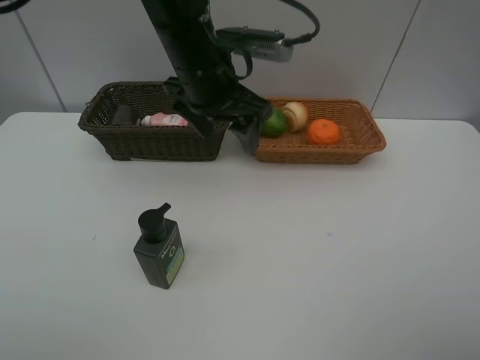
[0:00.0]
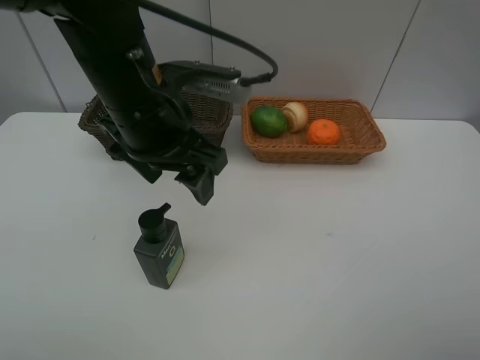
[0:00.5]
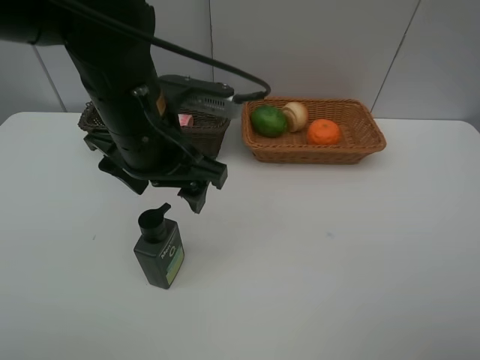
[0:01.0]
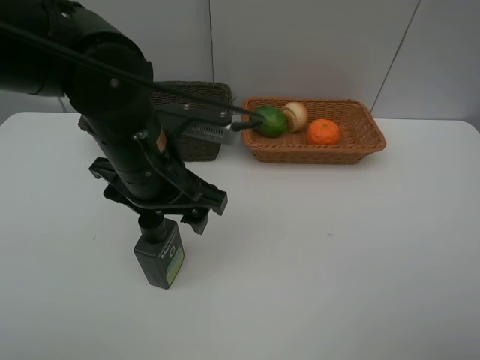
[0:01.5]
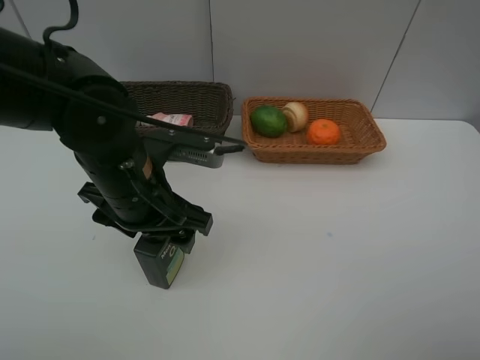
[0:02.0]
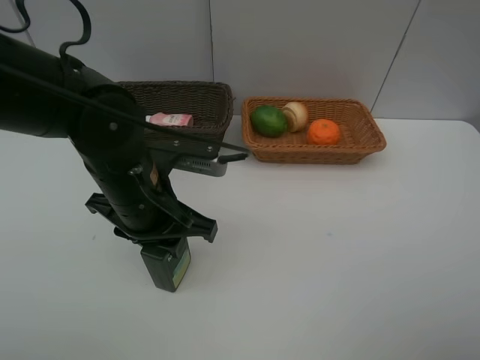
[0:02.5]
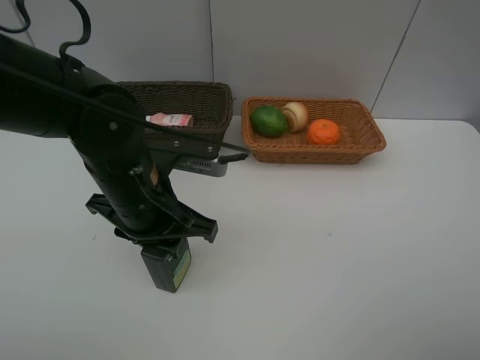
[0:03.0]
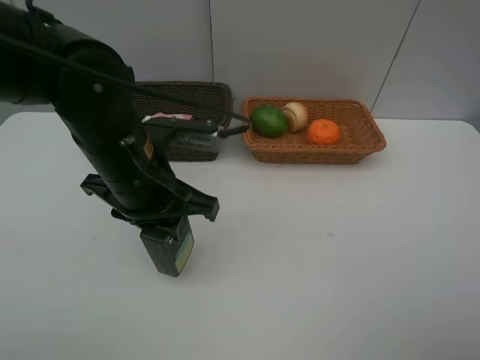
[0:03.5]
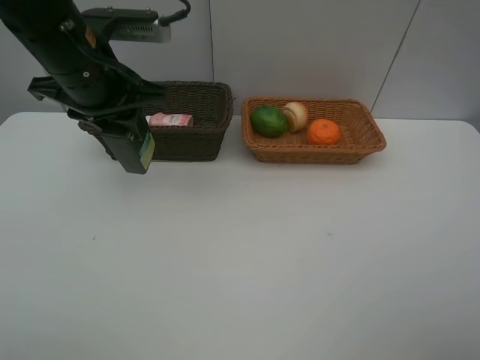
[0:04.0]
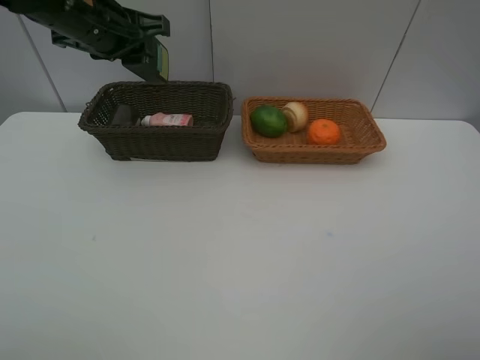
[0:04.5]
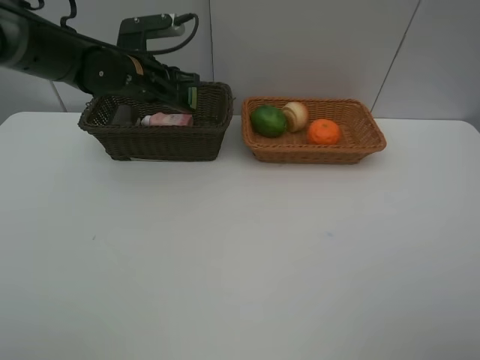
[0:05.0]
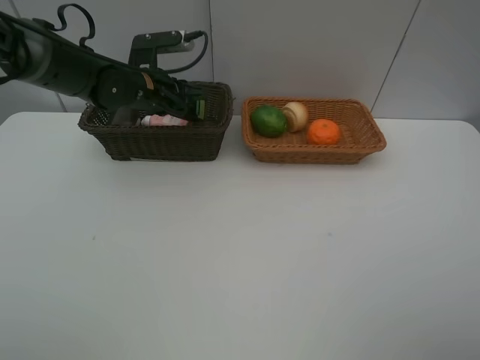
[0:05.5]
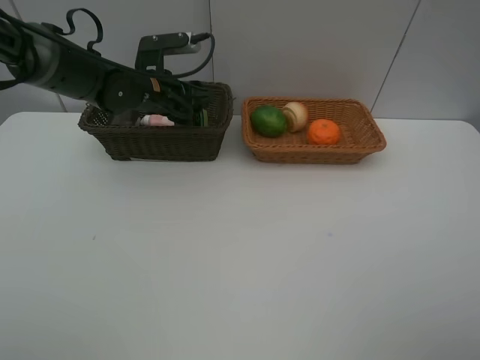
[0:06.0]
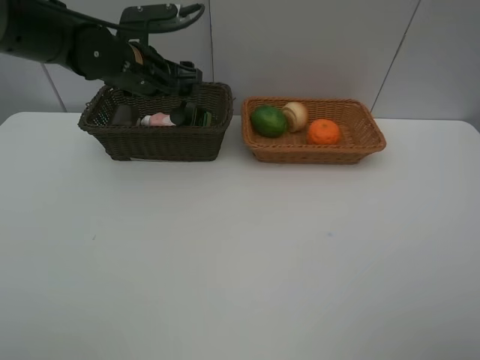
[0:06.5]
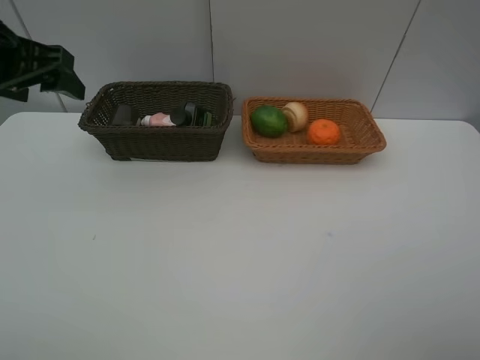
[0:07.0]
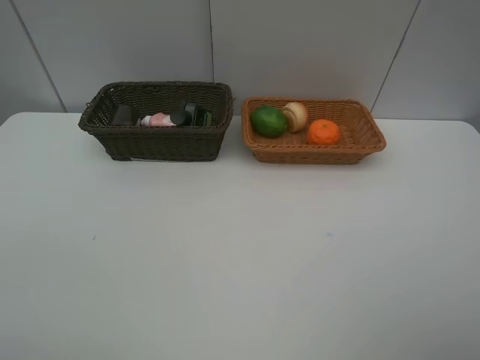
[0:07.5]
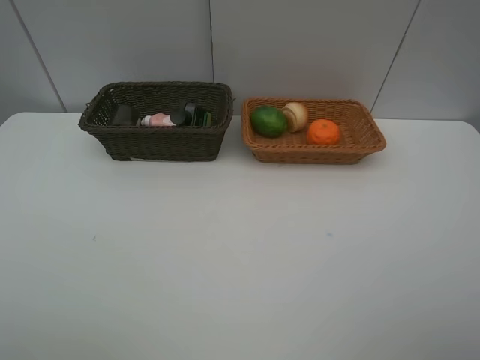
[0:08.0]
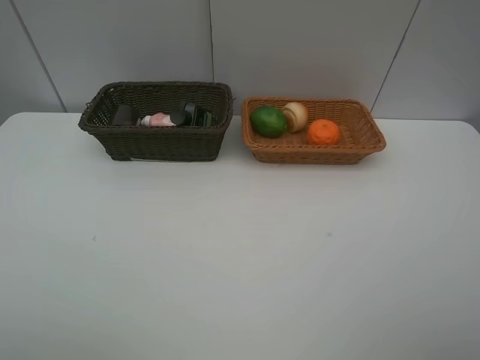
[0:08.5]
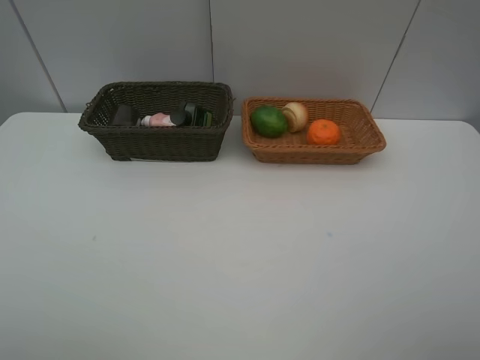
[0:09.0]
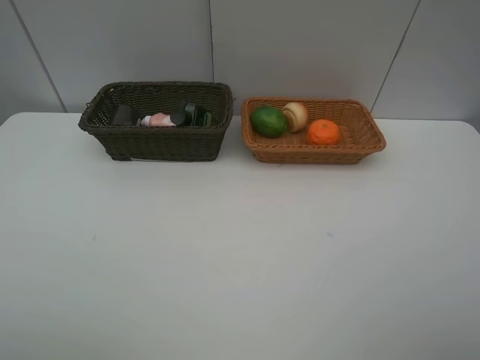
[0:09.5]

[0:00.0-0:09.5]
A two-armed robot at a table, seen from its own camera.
Task of the whole recording: place multiple objects separately in different baskets.
0.0 to 2.0 s: The left gripper is displaced backward, downward and to the left by approximately 15 cm.
2.0 to 4.0 s: The left gripper goes some 15 cm upward, forward and to the left, and closes its fingers.
4.0 to 5.5 s: The left gripper is displaced forward and downward by approximately 15 cm.
5.5 to 7.5 s: The left gripper shifts approximately 35 cm backward, upward and to the left, and opens.

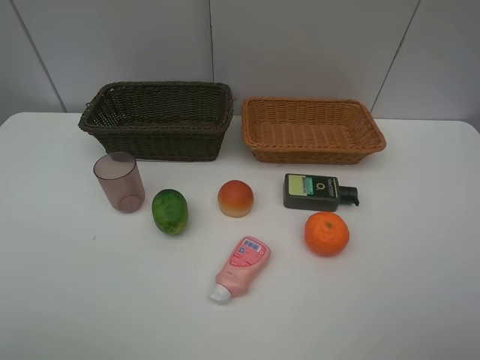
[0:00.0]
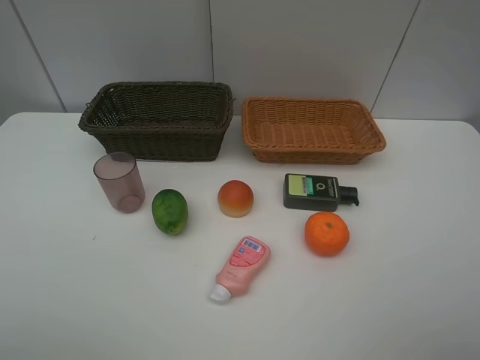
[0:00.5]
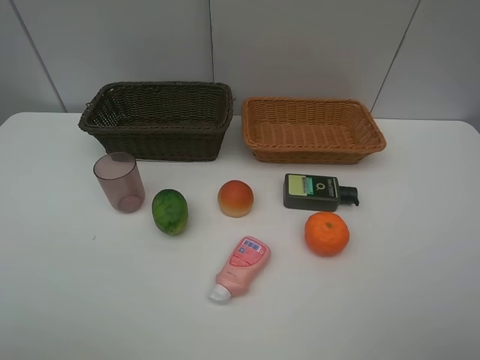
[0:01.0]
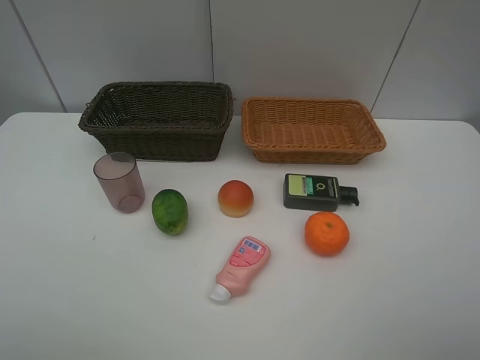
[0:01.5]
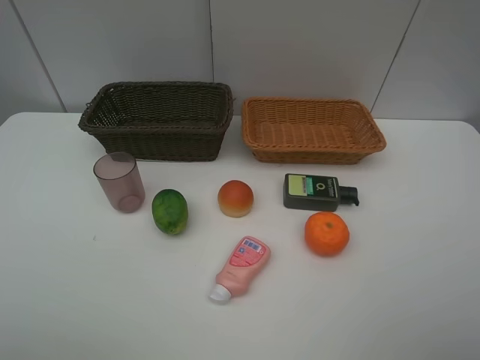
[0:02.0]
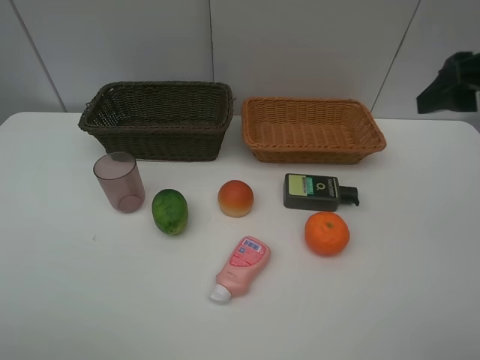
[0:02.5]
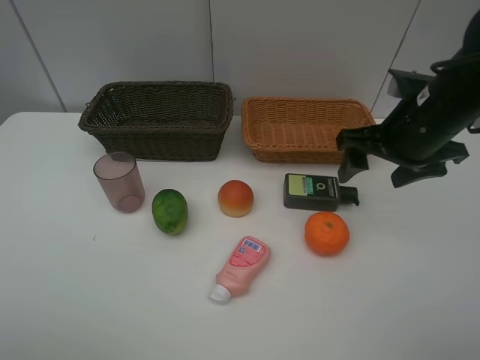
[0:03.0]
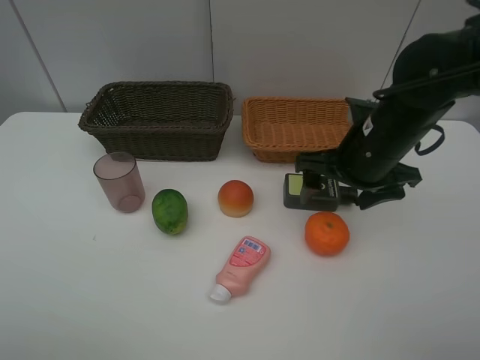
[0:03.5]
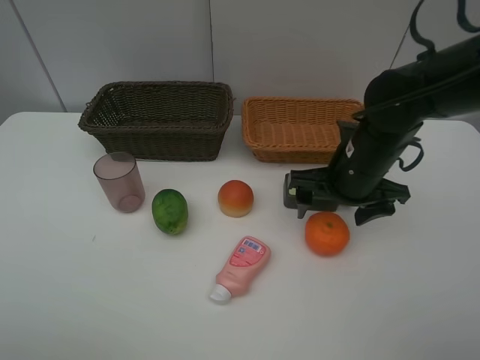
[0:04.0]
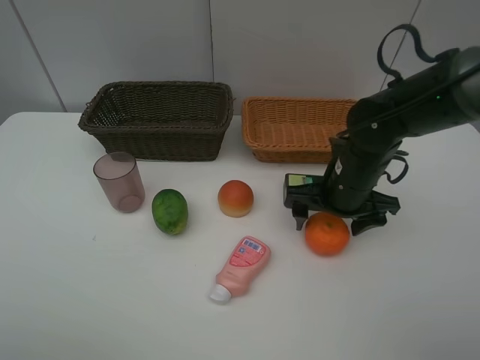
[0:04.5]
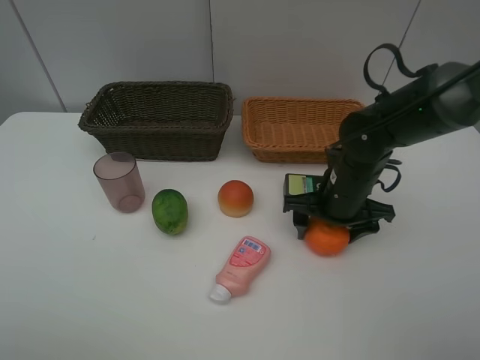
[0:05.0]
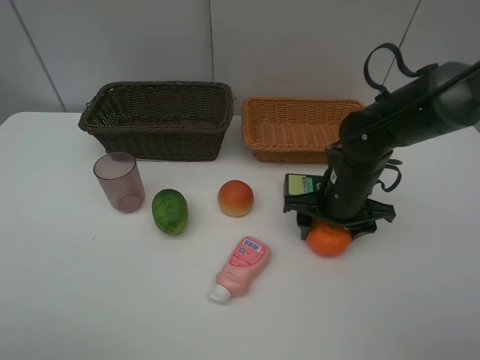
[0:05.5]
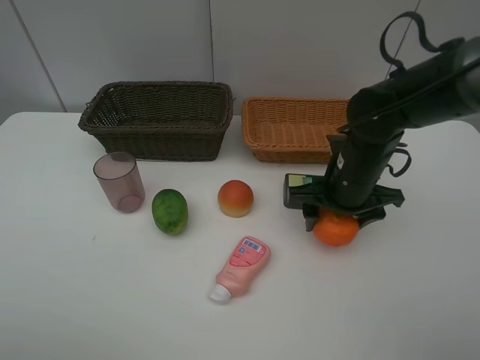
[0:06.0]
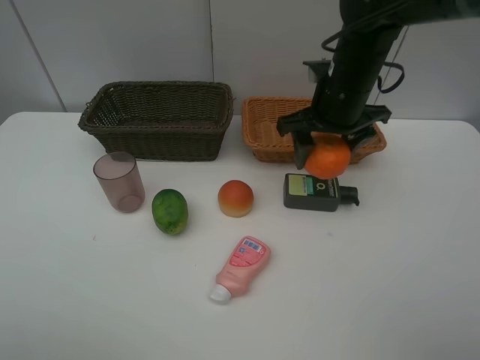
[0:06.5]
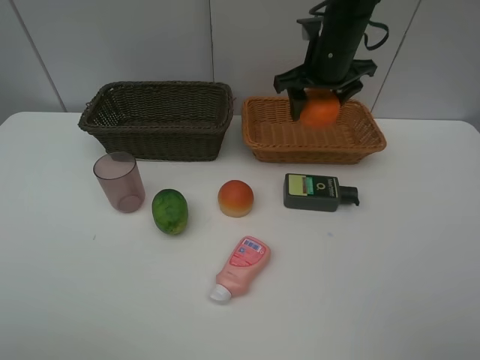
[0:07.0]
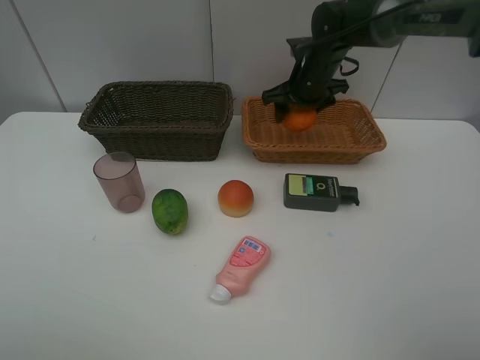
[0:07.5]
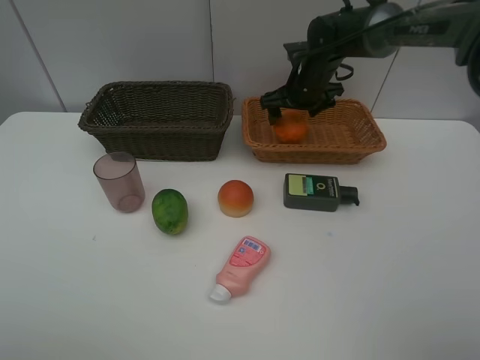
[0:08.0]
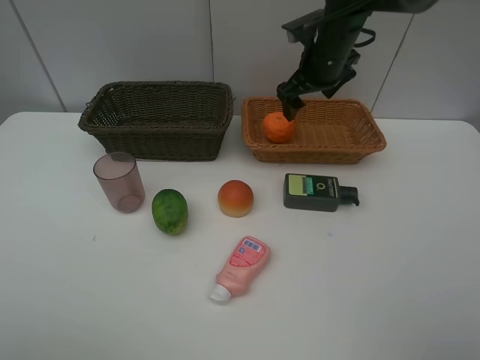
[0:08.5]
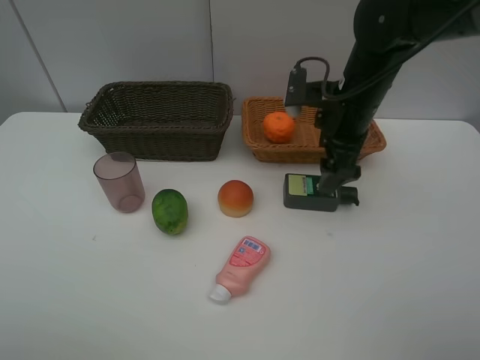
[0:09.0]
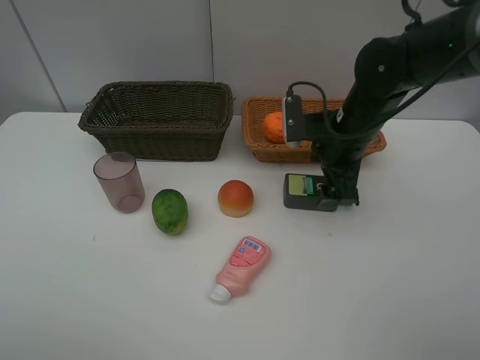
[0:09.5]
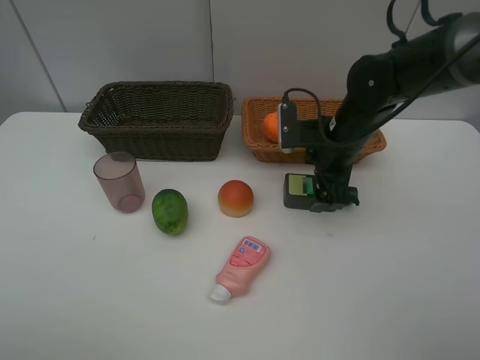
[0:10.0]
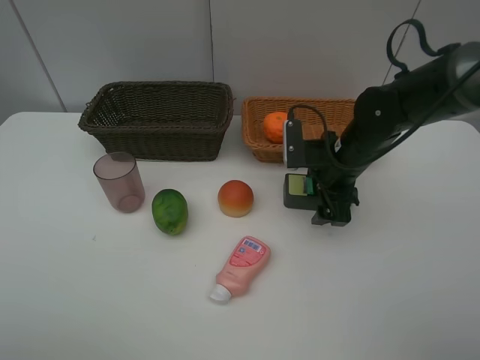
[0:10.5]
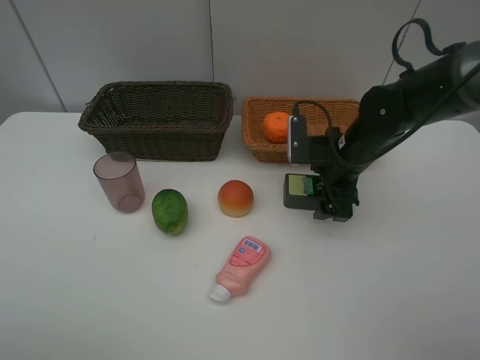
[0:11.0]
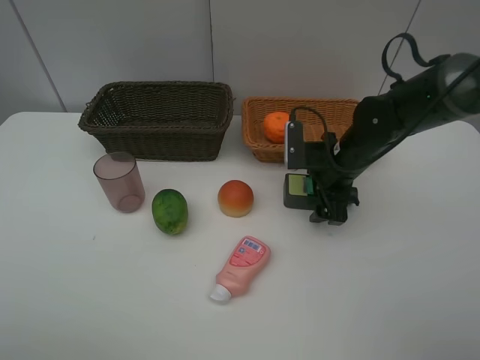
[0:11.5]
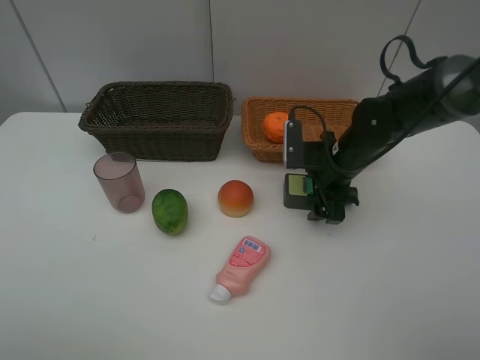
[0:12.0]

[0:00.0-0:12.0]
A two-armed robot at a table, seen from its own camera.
Task of the whole recording: place multiple objects separately in different baskets.
2.0 to 4.0 s: The right gripper shifts about 30 cm forward, to the left and downward.
4.0 to 6.0 s: The right gripper closes up.
6.0 to 8.0 s: The right gripper shifts about 20 cm forward, and opens.
8.0 to 10.0 s: The right gripper is displaced backward by roughly 15 cm.
10.0 to 12.0 s: There are only small adjustments of the grippers.

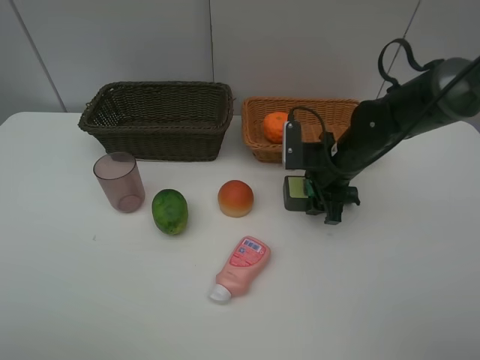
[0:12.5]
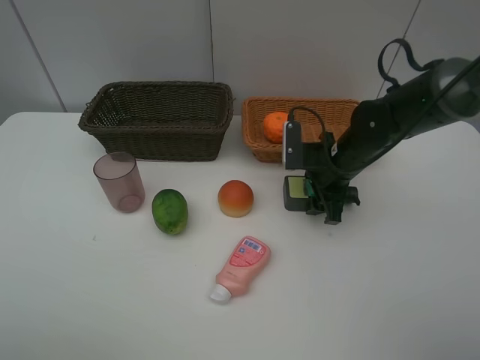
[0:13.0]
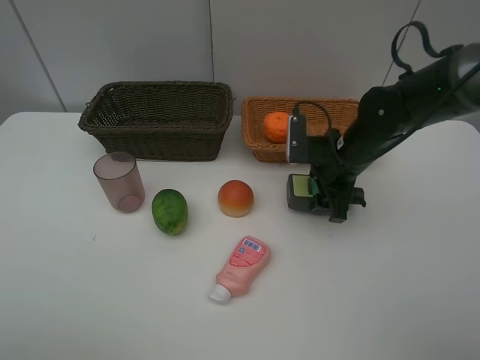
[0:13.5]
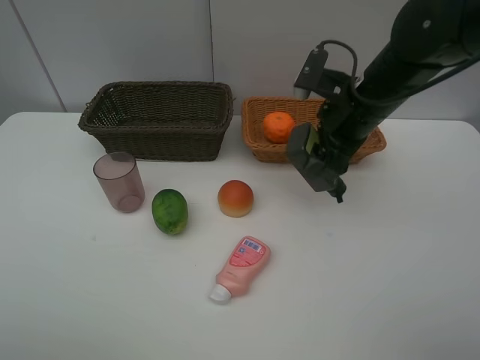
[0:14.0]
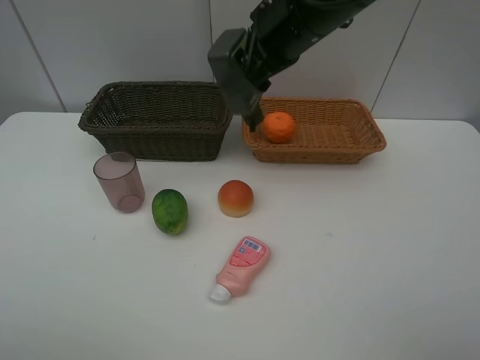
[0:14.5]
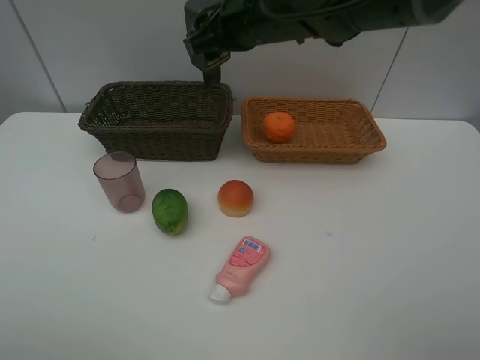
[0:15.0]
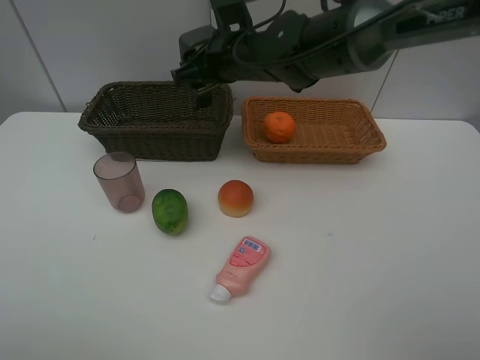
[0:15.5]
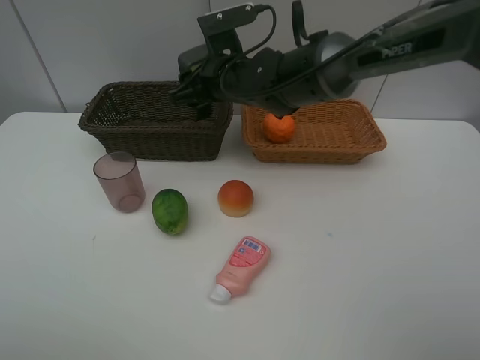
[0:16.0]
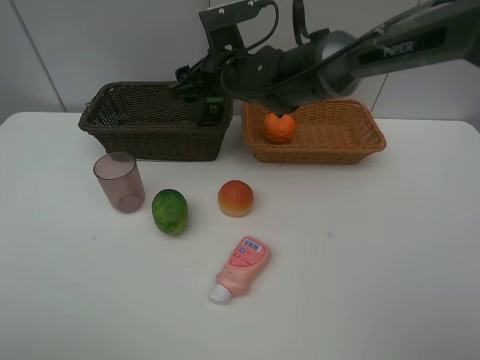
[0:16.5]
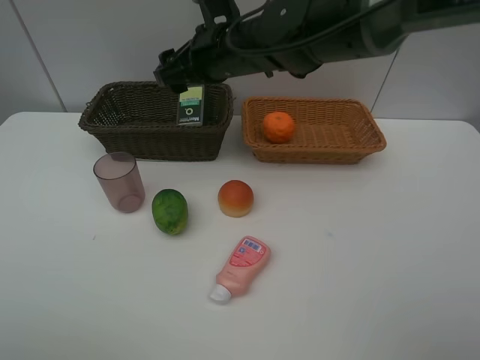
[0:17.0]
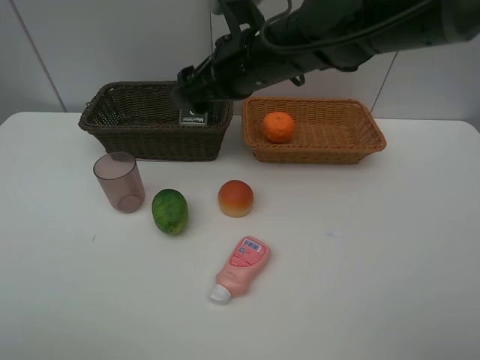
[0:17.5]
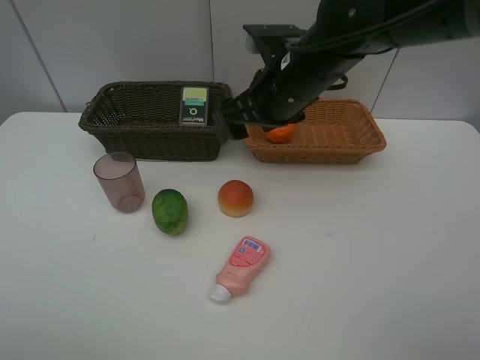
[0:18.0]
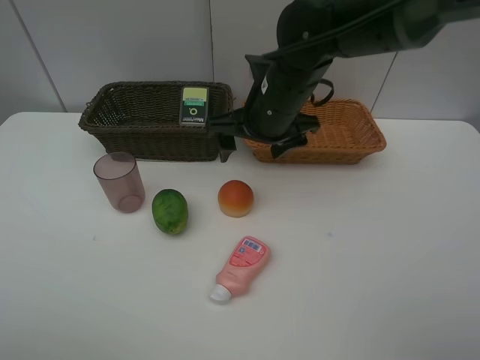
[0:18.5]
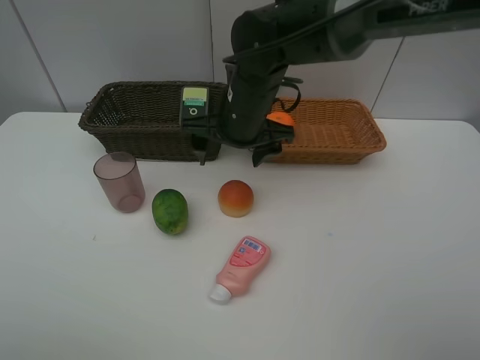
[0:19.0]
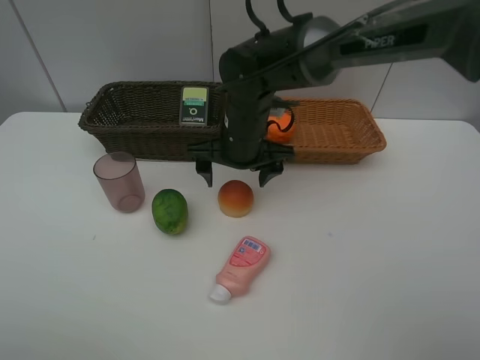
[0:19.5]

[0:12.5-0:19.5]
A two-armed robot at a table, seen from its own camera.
Task of the whole recording: place multiple objects separately in different baskets.
12.5 to 14.5 s: The right gripper shifts approximately 20 cm upward and to the left.
14.5 to 16.0 s: The right gripper shifts approximately 15 cm downward, to the left and forward.
16.0 to 17.5 s: The right gripper travels backward and upward by about 10 cm, and opens.
17.5 to 19.5 s: The right gripper goes about 10 cm downward.
